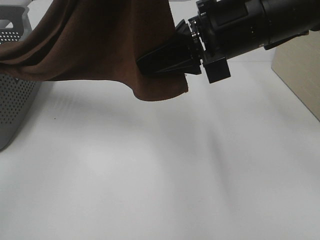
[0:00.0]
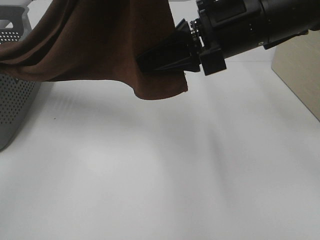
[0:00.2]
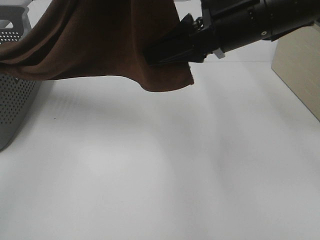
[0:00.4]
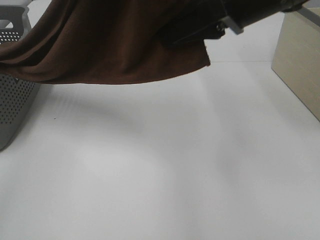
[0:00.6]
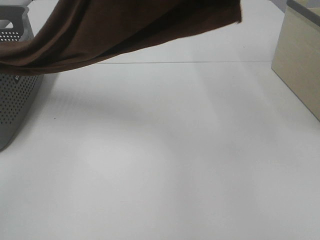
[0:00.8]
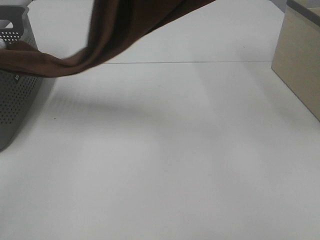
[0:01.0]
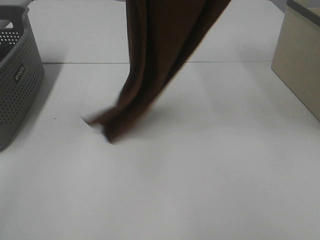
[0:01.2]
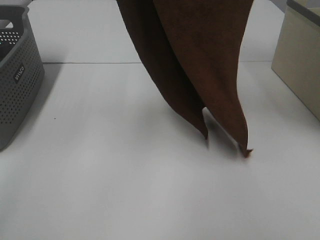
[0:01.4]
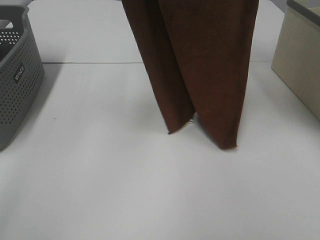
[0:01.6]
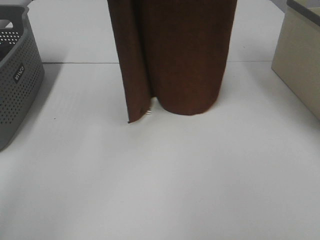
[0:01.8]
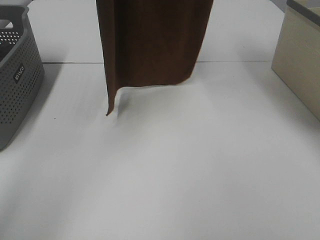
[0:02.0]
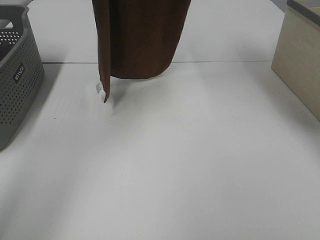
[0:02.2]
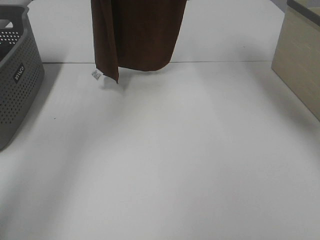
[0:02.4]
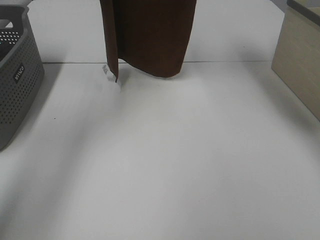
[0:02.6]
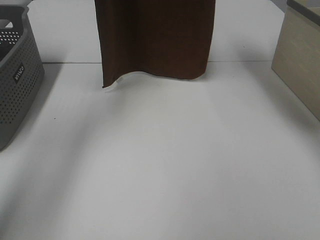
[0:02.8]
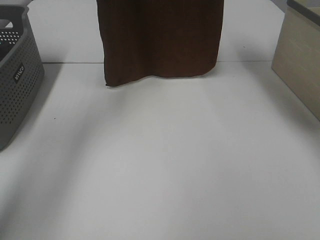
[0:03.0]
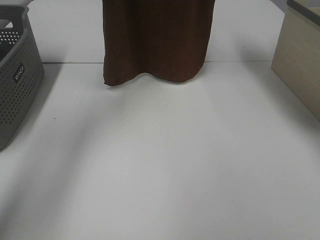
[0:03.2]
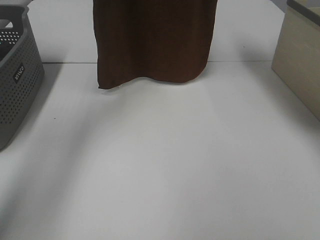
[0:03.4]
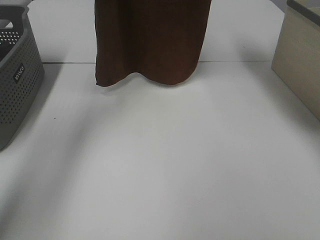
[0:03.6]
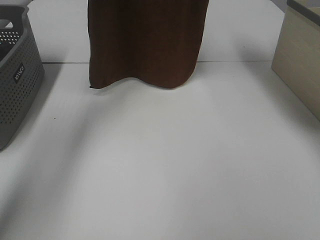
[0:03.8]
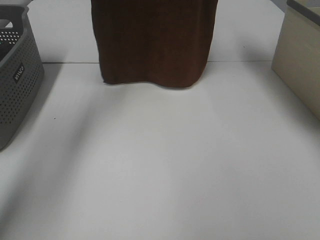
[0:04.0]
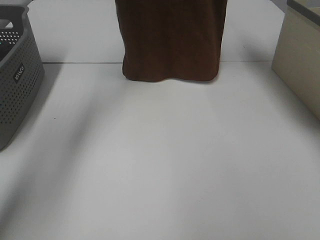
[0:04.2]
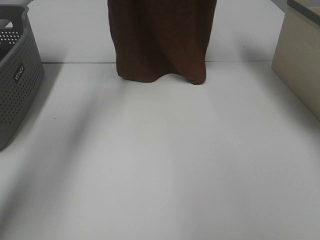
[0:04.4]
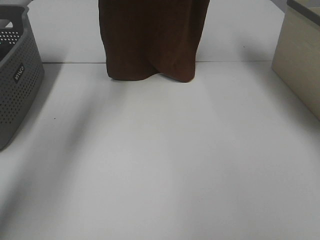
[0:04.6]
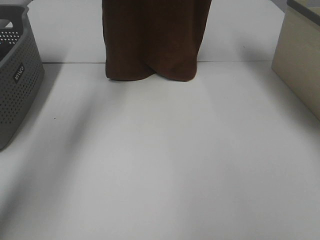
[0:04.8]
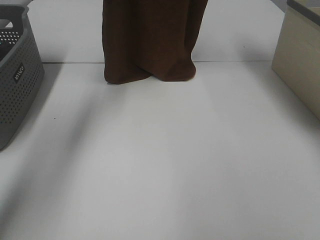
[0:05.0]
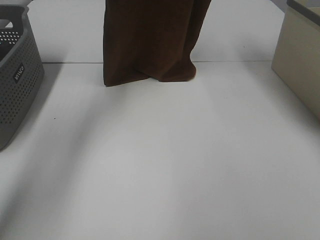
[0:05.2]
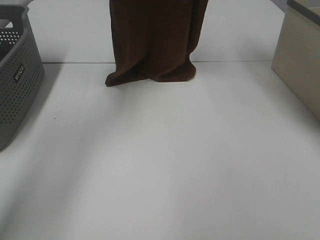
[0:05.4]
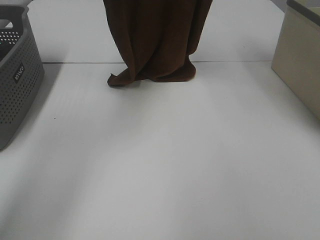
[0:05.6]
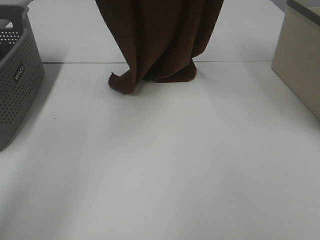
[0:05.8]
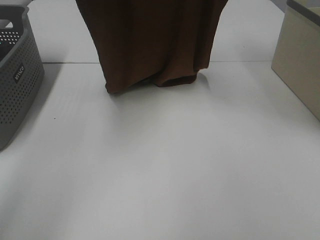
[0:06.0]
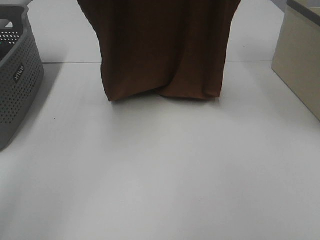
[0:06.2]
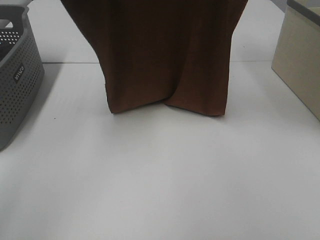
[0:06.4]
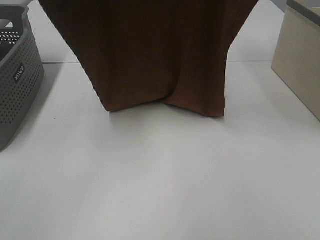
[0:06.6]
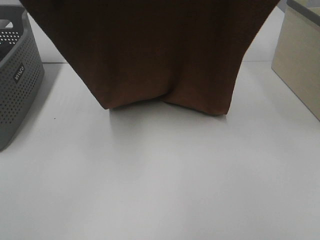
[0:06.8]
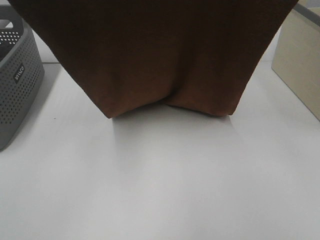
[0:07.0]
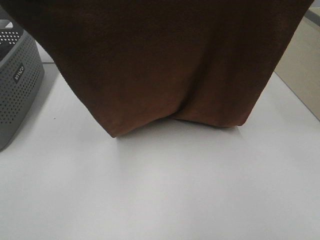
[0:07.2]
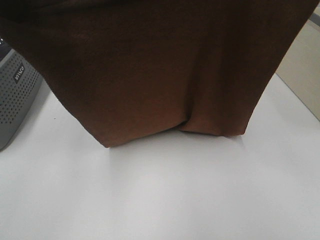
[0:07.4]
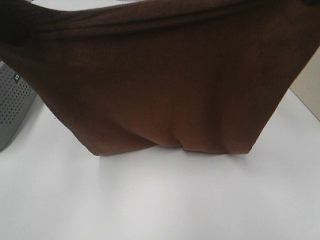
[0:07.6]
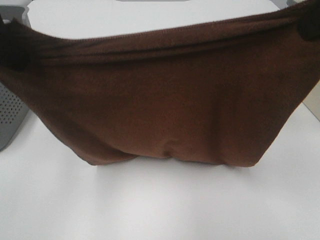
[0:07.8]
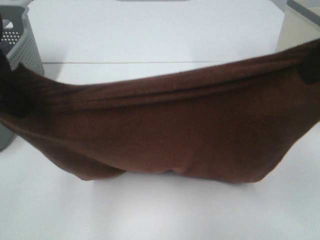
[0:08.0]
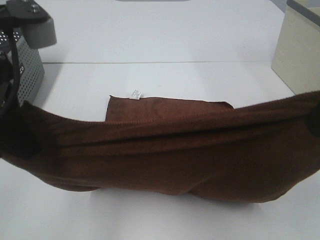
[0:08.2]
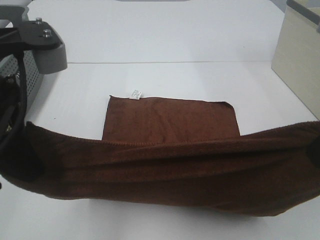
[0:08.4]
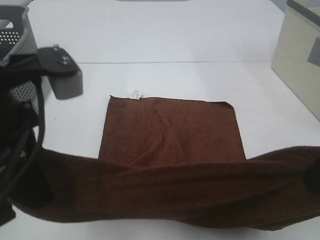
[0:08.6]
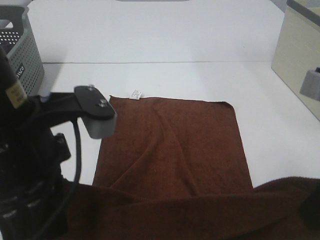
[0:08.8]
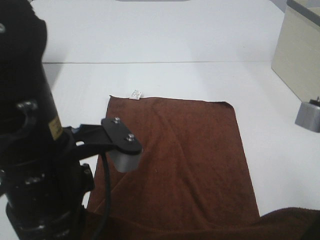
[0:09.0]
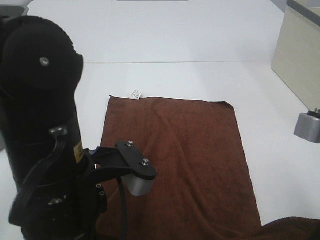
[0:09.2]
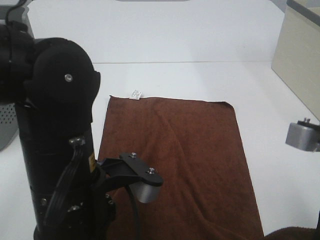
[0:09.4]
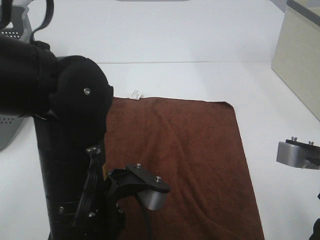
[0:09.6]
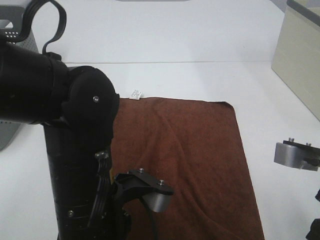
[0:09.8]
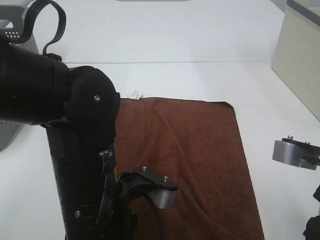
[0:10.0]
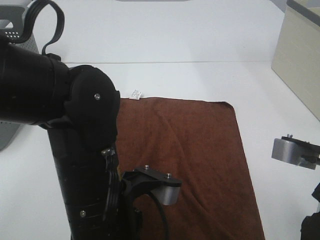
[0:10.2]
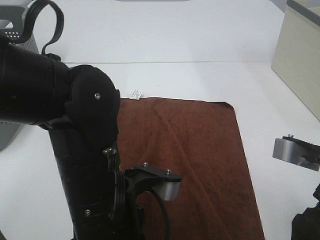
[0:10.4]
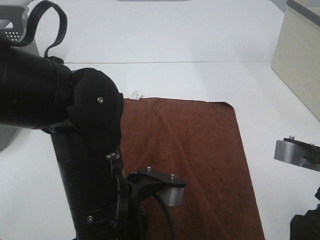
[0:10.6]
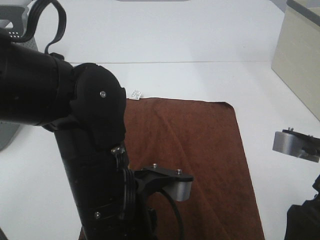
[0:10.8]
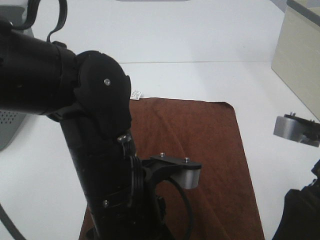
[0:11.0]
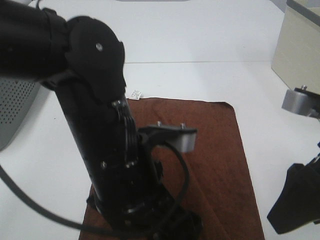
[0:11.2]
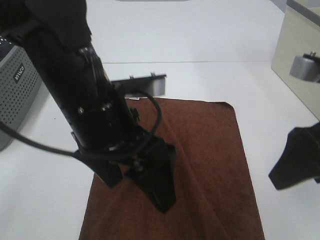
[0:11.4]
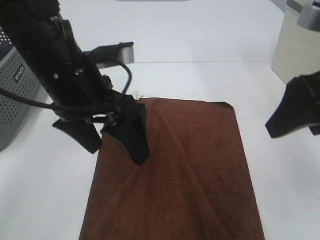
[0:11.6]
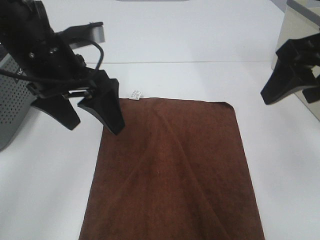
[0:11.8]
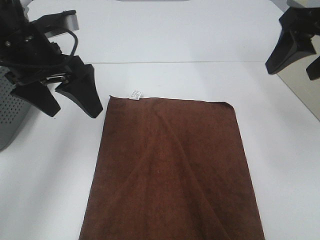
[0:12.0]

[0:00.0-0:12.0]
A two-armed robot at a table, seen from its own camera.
Task of the whole recording: Remove the towel and place it.
Step, 0:01.2 to 0:06.2: Left hand: spread the brown towel flat on the table.
Step, 0:01.2 to 0:06.2: Right hand: spread the brown towel flat on the table.
0:00.0 to 0:01.6: The left gripper goes roughly 15 cm forward and to the left; the right gripper goes roughly 25 cm upward.
0:01.6 to 0:03.0: The right gripper moves forward, about 10 cm; the left gripper is displaced forward and downward by roughly 15 cm.
0:03.0 to 0:04.4: The grippers move only a little.
0:04.4 to 0:06.0: Both grippers move backward, roughly 15 cm.
0:06.0 to 0:07.6: Both grippers travel together backward and downward, some 15 cm.
0:07.6 to 0:09.0: The left gripper heads downward, to the right and backward, covering approximately 20 cm. The right gripper moves downward and backward, roughly 20 cm.
0:09.0 to 0:10.4: The left gripper goes roughly 5 cm downward, and opens up, while the right gripper opens up.
0:10.4 to 0:12.0: The right gripper goes approximately 20 cm forward and upward. Meanwhile the left gripper shifts approximately 25 cm forward, to the left and upward.

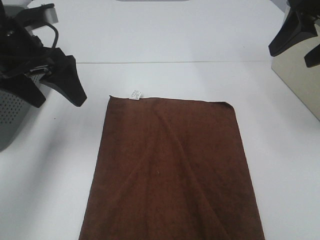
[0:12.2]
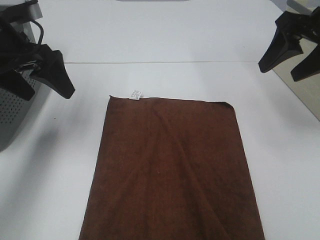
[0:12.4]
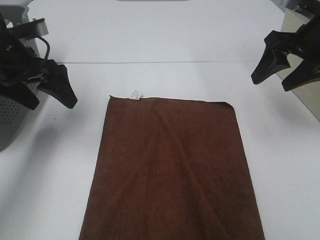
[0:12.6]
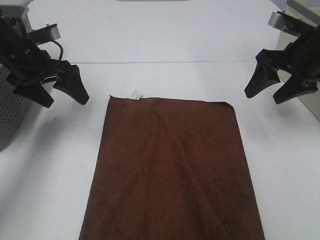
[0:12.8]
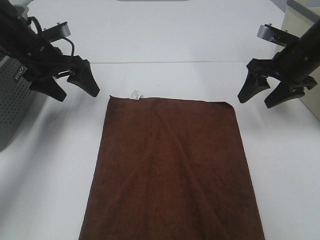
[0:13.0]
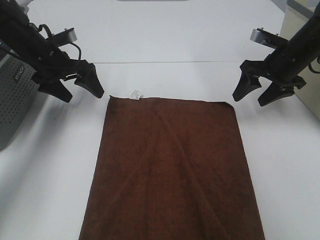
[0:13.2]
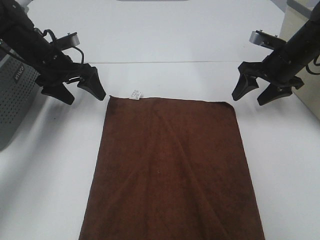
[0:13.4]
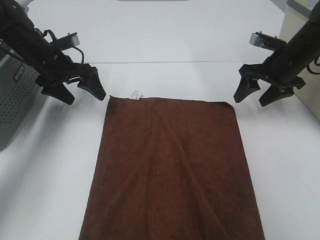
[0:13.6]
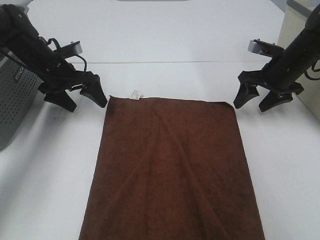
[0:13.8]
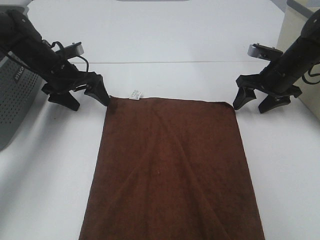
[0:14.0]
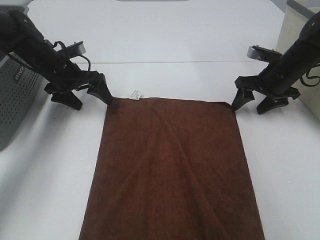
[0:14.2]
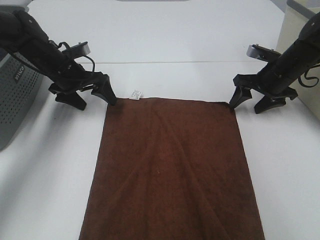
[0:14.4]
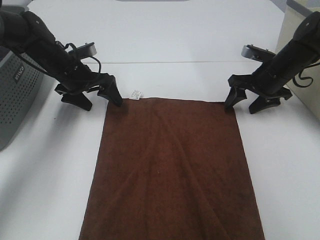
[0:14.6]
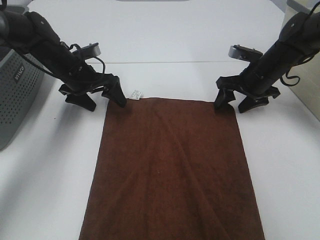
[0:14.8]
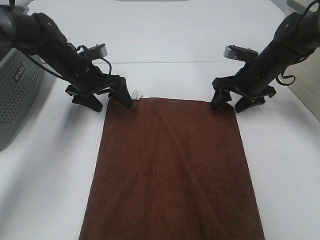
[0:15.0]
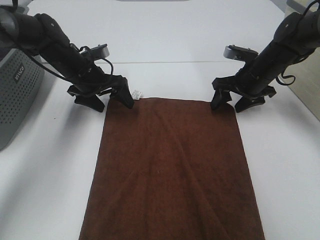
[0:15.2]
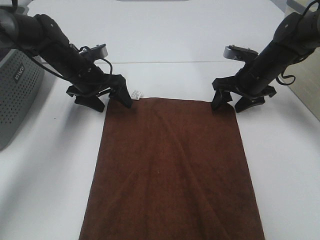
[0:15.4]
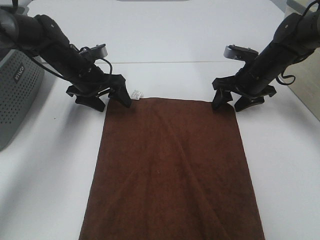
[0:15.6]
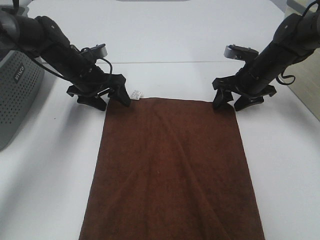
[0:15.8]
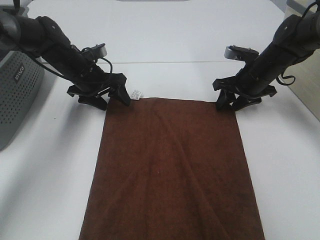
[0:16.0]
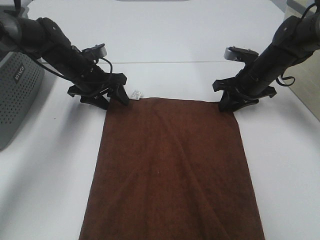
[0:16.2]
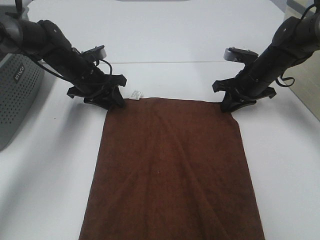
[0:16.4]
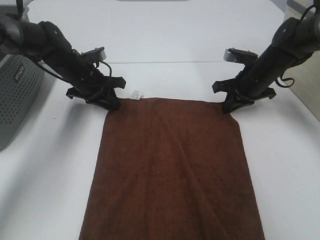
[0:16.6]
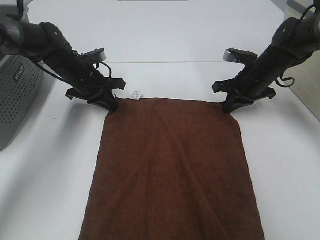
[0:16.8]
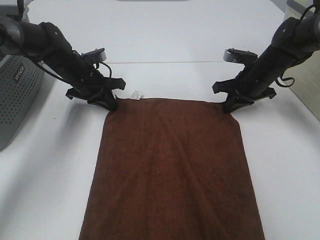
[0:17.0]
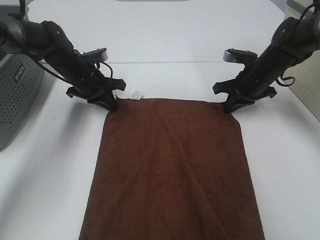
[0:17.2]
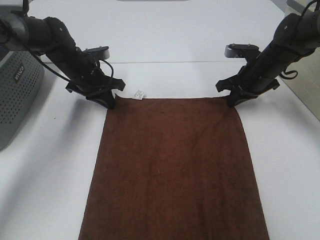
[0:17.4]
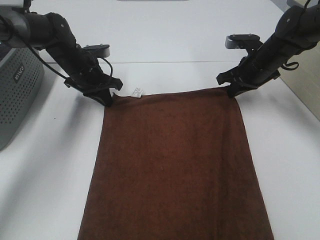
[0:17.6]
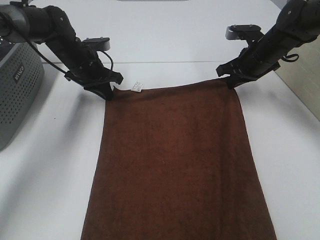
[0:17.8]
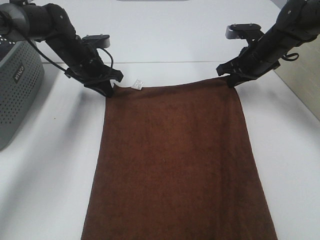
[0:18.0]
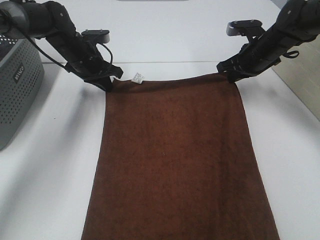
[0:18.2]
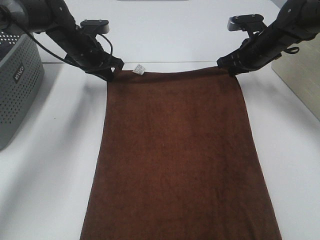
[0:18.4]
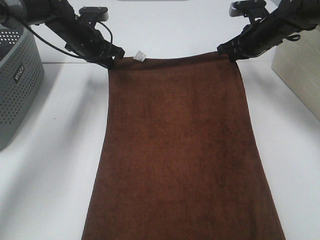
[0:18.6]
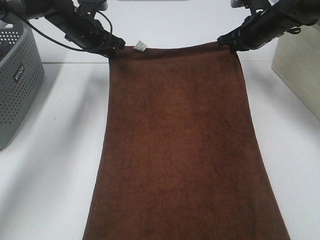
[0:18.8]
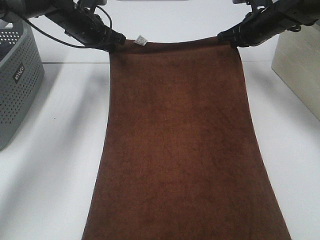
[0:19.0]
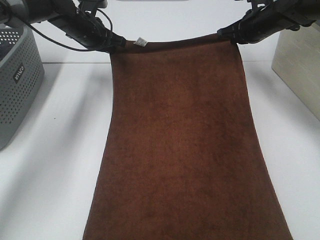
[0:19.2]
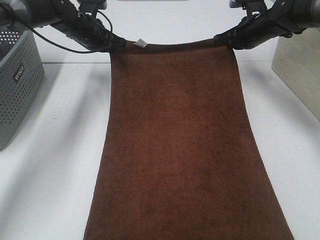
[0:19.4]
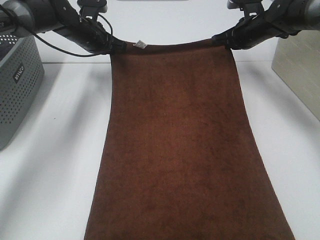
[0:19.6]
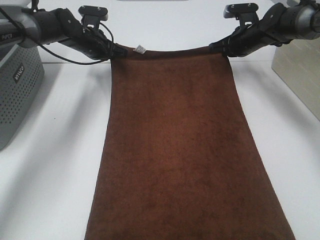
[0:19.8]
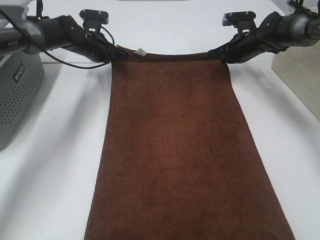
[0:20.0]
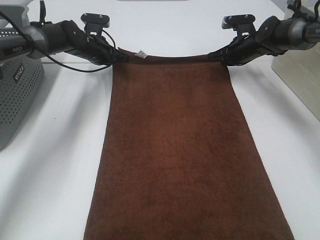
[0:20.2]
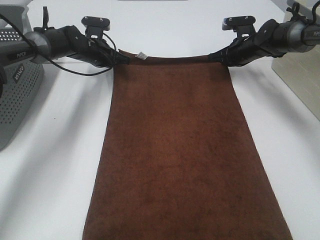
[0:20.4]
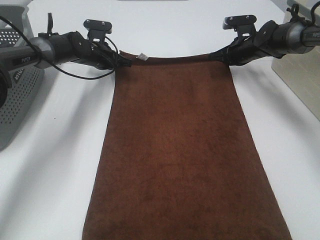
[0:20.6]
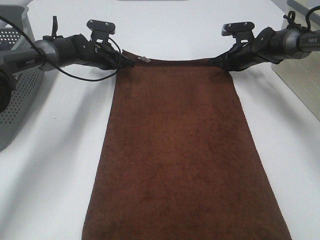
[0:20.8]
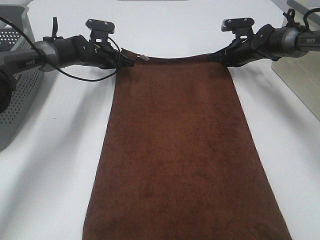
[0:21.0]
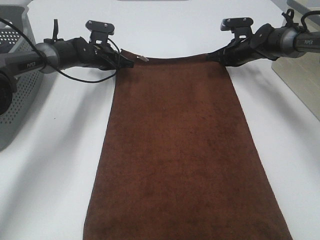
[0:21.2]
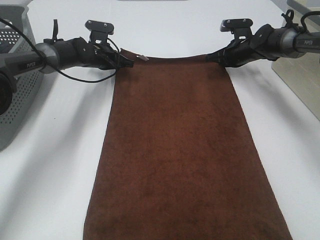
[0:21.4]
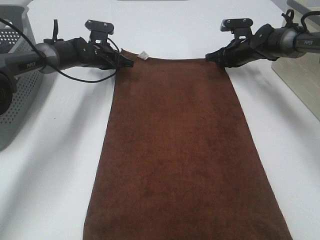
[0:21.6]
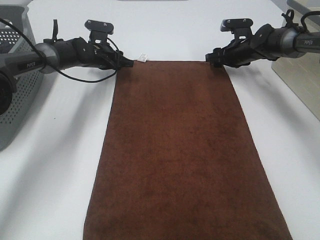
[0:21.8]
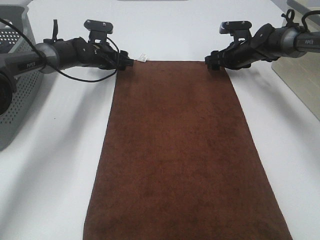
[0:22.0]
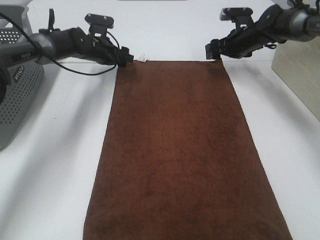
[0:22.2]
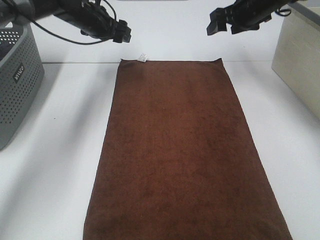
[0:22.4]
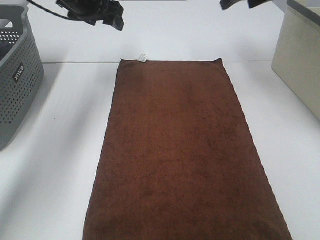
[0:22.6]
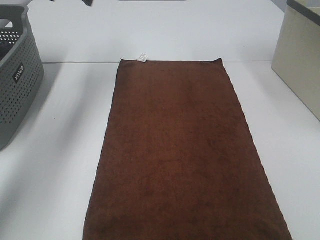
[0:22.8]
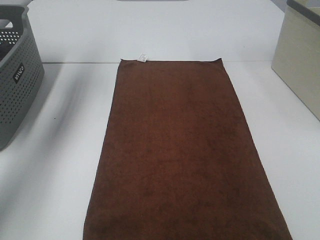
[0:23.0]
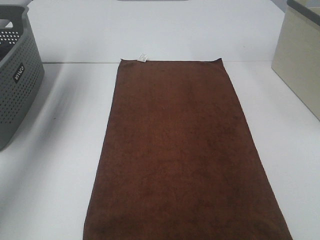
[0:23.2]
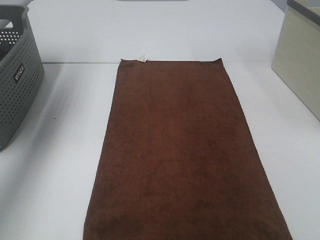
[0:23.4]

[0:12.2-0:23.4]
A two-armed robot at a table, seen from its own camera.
Task of the whole recording: Remove the towel and place it.
Step, 0:12.2 to 0:15.4: Left hand:adjust the brown towel.
Step, 0:12.2 to 0:15.4: Right hand:adjust the brown towel.
0:12.2 to 0:13.8: The grippers both shift downward and forward by about 20 cm.
0:13.8 to 0:15.4: The right gripper moves some 5 cm; the left gripper shifts approximately 5 cm to the right.
0:15.4 to 0:17.0: The right gripper closes its fingers, while the left gripper closes.
0:17.0 to 0:18.6: The grippers both shift upward and forward by approximately 10 cm.
0:18.6 to 0:20.2: The right gripper shifts some 10 cm downward and forward. Meanwhile the left gripper heads downward, covering about 5 cm.
0:20.2 to 0:21.8: The right gripper opens its fingers, while the left gripper opens its fingers.
0:21.8 to 0:23.4: The right gripper heads upward and backward, covering roughly 40 cm; the left gripper moves upward, backward and to the left, approximately 40 cm, and opens up.
